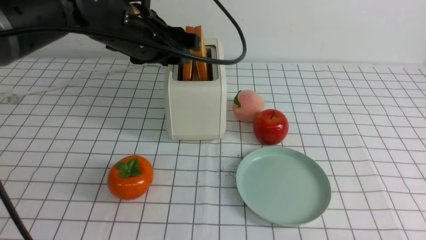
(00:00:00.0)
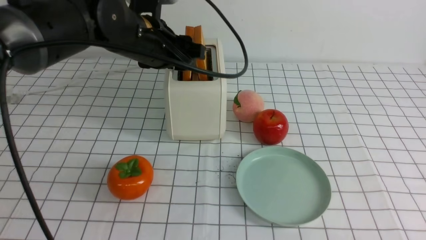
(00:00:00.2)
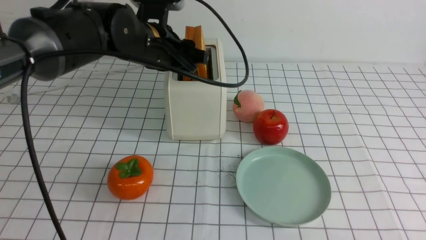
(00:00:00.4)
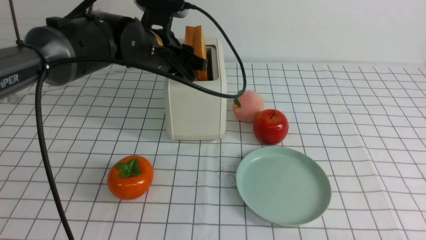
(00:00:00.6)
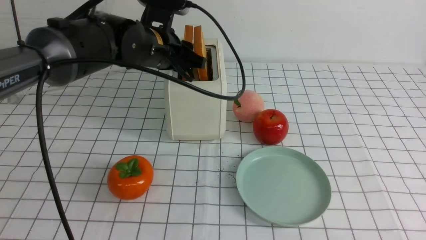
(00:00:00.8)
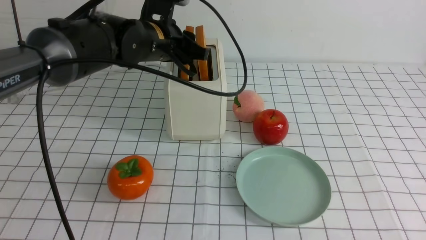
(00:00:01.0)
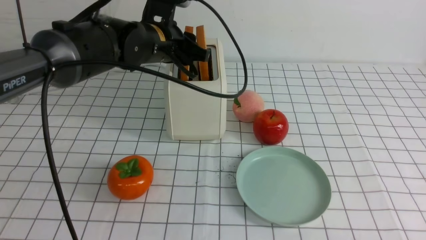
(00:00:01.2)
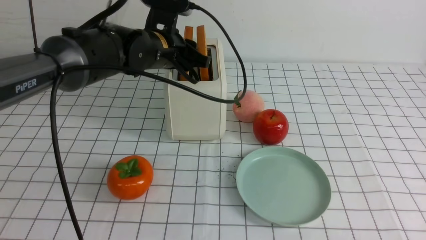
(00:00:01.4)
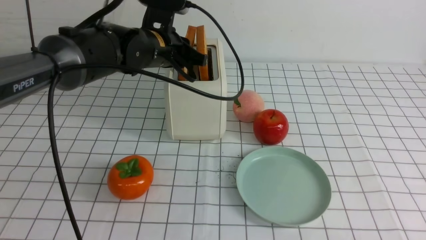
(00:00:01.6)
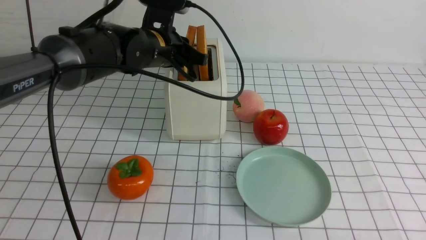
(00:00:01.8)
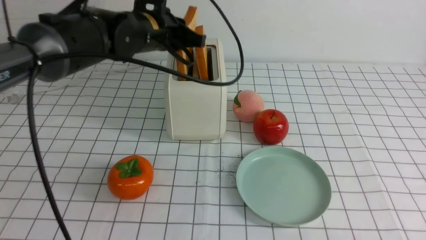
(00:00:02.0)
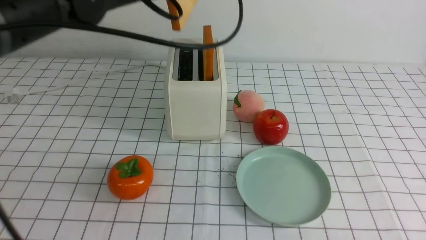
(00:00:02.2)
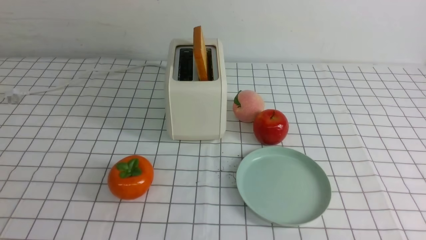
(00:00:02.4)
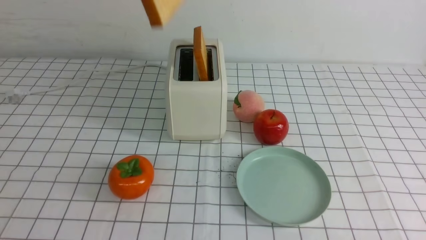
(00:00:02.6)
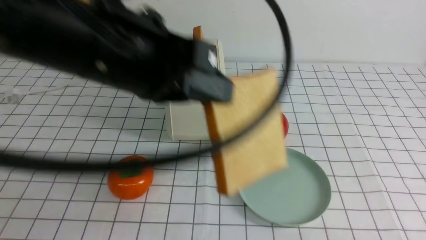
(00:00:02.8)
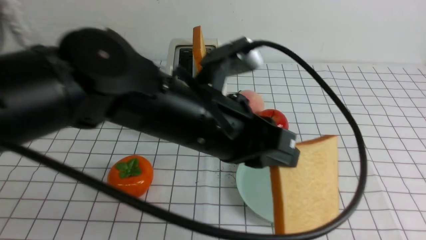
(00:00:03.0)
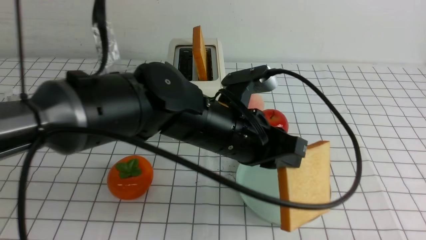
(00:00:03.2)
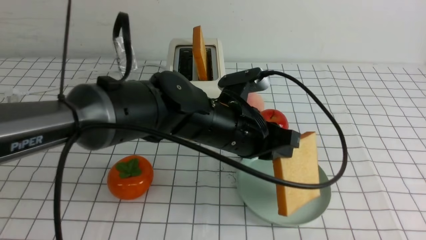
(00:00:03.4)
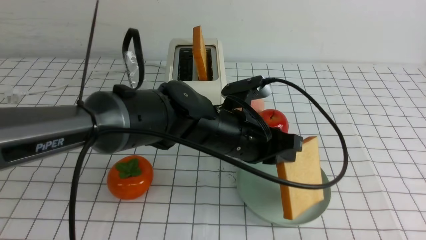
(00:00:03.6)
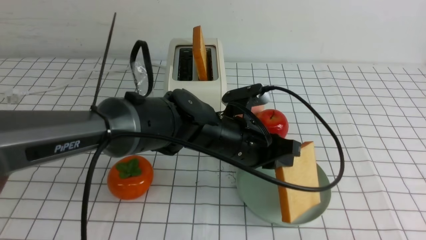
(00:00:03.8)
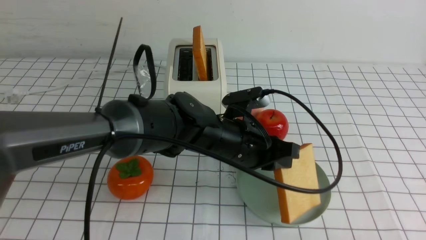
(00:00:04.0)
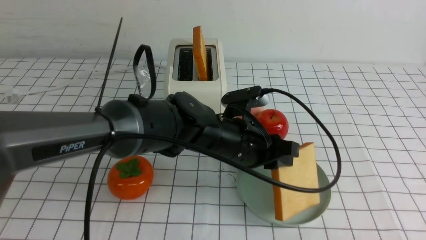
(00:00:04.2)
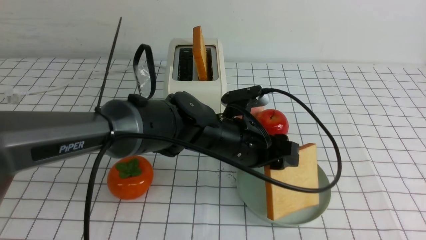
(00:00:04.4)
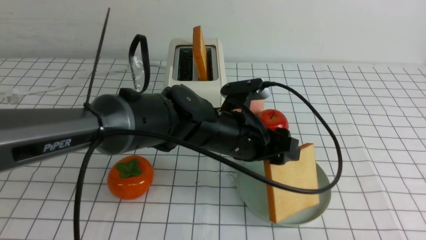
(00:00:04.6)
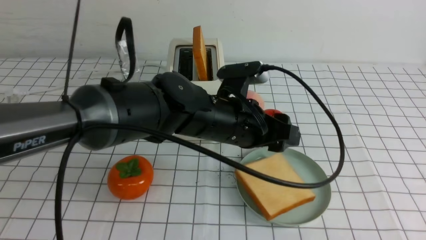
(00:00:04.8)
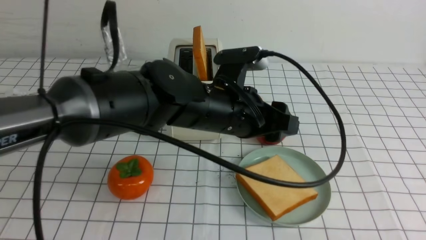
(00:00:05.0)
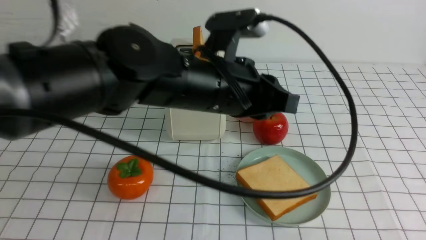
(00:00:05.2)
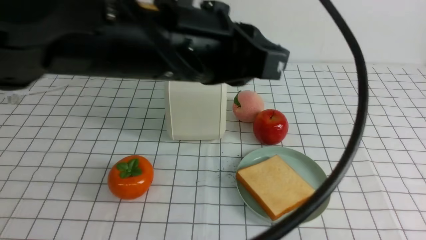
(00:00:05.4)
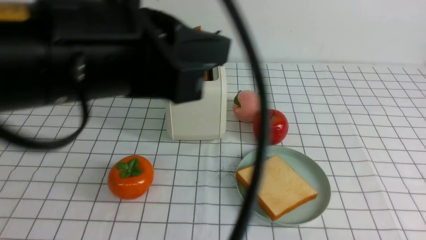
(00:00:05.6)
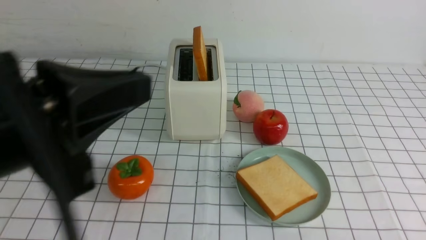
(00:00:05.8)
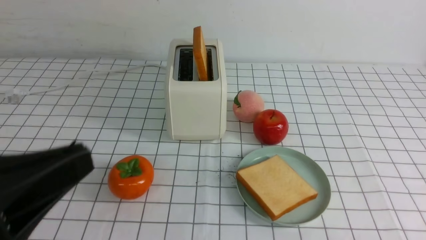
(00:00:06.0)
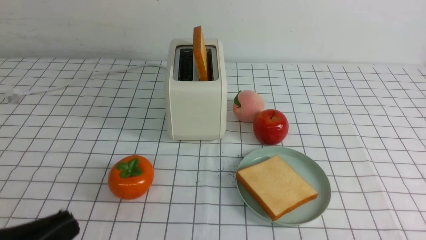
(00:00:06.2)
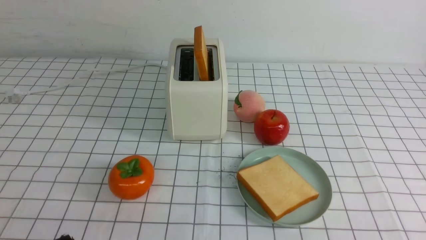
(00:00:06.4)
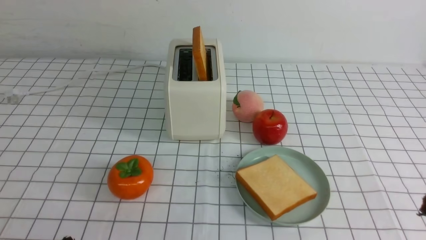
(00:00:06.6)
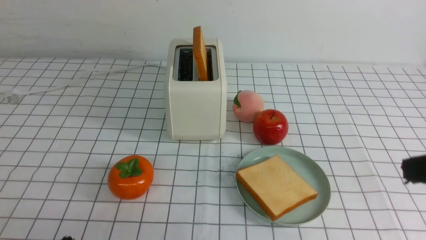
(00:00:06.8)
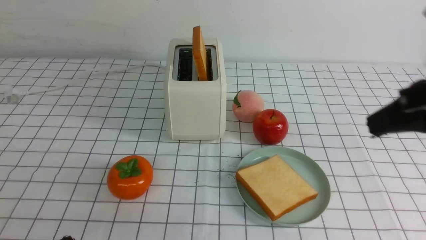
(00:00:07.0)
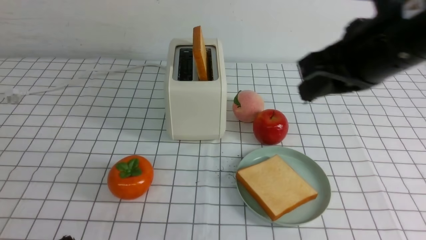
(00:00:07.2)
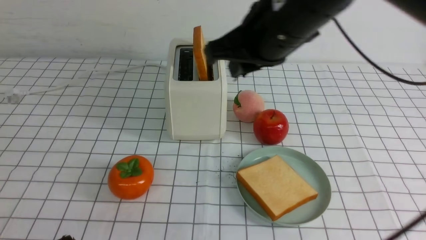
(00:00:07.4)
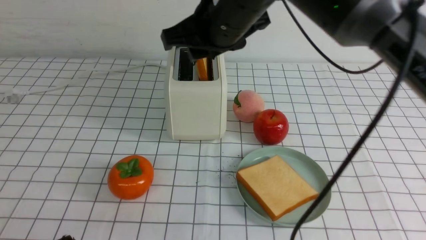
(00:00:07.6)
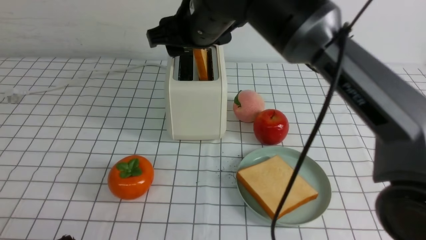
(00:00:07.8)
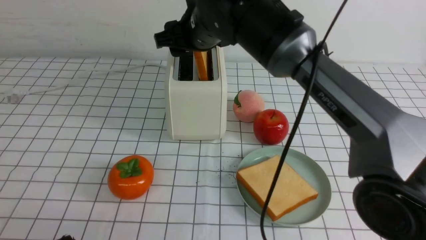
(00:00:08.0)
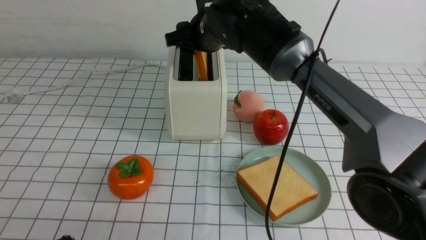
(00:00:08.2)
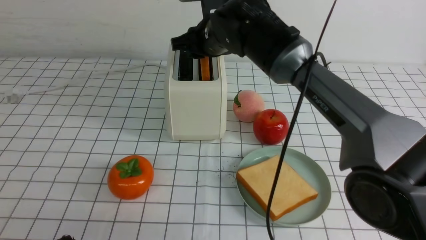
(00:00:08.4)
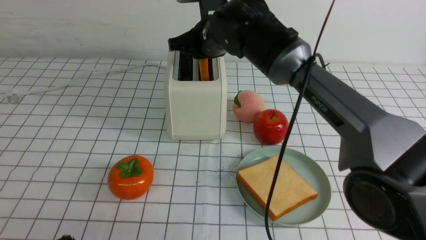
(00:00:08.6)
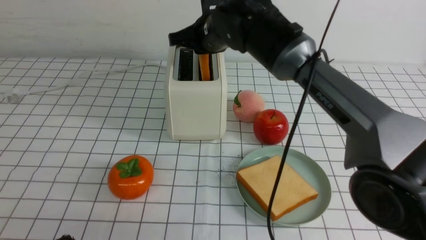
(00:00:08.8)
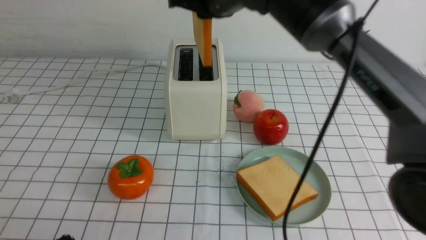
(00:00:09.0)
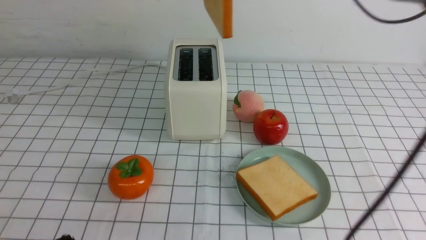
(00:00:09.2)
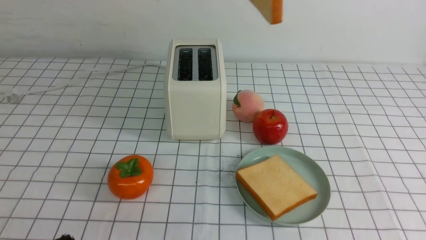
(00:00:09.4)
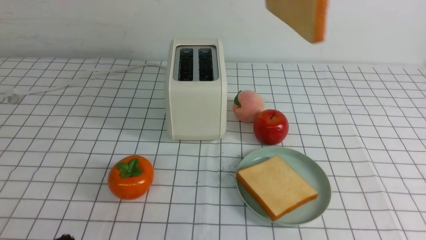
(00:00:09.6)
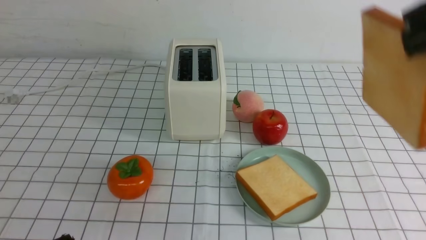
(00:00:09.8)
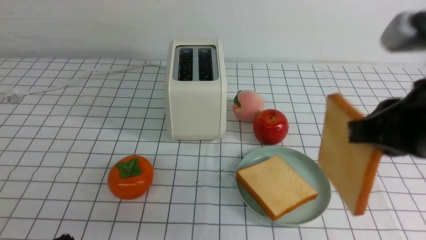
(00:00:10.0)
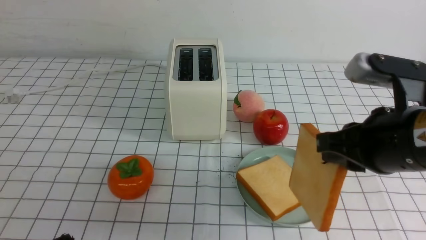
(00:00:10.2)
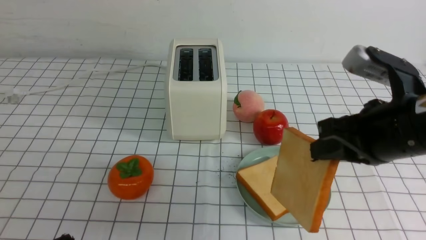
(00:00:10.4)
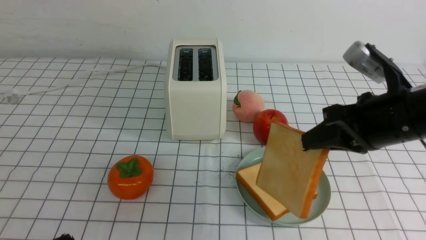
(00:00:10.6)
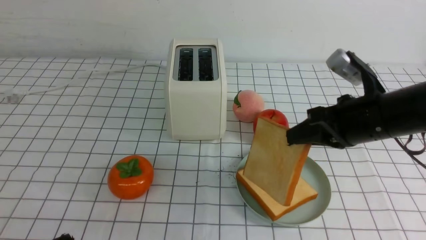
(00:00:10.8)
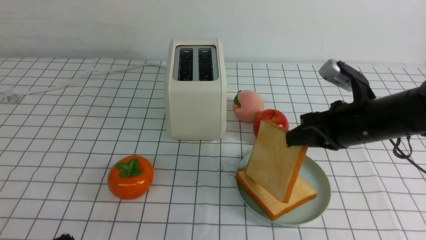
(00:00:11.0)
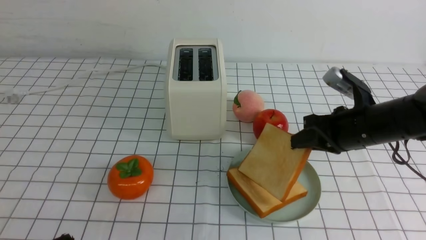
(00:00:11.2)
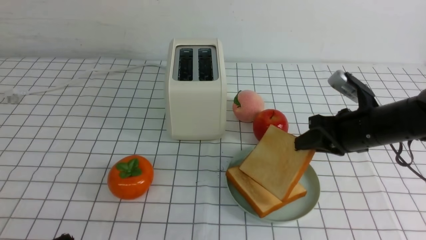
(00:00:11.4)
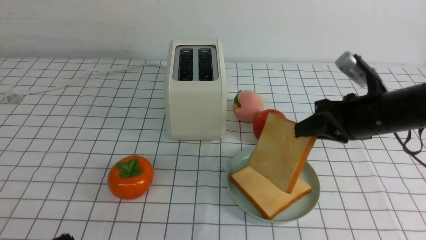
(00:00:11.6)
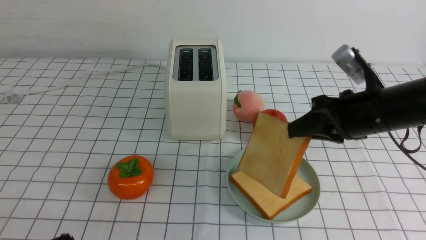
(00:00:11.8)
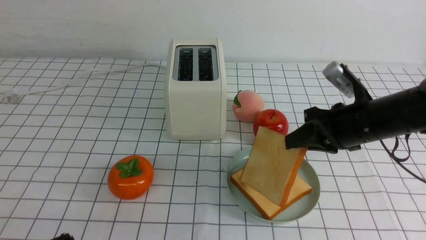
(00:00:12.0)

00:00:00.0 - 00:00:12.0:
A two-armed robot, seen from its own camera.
Task of the whole recording: take toasted bread from bread machine on white checkered table place on plate.
Step, 00:00:00.0 - 00:00:02.0: use the left arm to take out a slice of bread.
Step, 00:00:02.2 - 00:00:04.6: use the left arm to put a slice of bread into the empty plate.
Step, 00:00:04.8 - 00:00:09.0: use the right arm to take out a slice of bread.
00:00:00.0 - 00:00:01.6: The left gripper shifts approximately 10 cm forward and downward, and closes its fingers.
00:00:01.6 - 00:00:03.0: The left gripper moves backward, approximately 20 cm.
00:00:03.0 - 00:00:04.4: The left gripper shifts approximately 15 cm downward and forward, and opens its fingers.
00:00:04.4 - 00:00:06.0: The left gripper goes approximately 35 cm backward, to the left and upward, and closes.
00:00:06.0 - 00:00:07.6: The right gripper travels forward, to the left and upward by about 50 cm, and closes, then opens again, while the left gripper goes some 10 cm downward.
00:00:07.6 - 00:00:09.0: The right gripper closes its fingers.
00:00:09.0 - 00:00:10.4: The right gripper shifts approximately 25 cm to the right, backward and downward.
00:00:10.4 - 00:00:12.0: The right gripper travels forward and downward by some 15 cm.

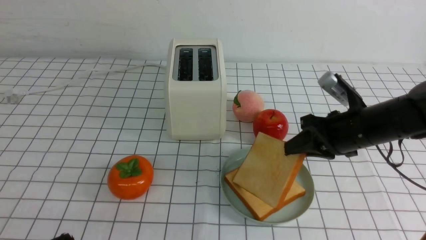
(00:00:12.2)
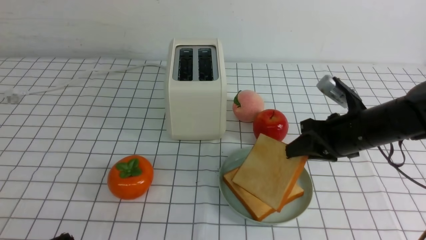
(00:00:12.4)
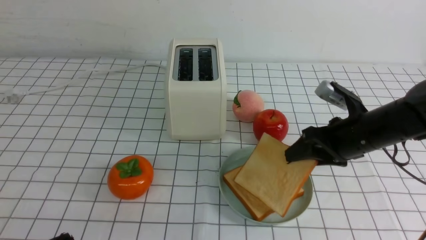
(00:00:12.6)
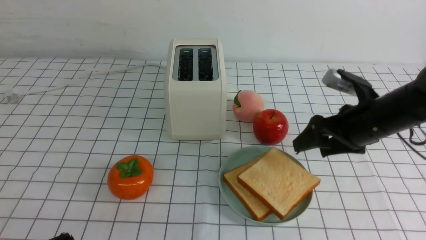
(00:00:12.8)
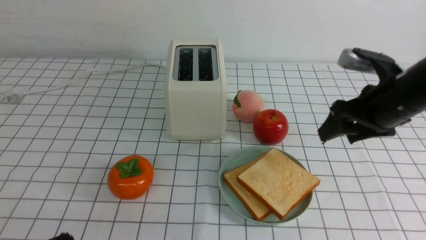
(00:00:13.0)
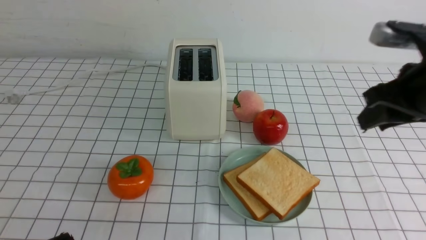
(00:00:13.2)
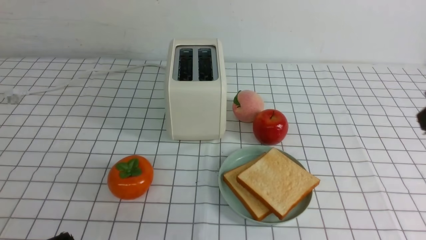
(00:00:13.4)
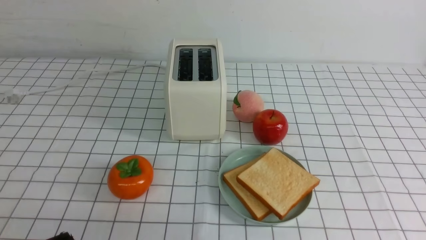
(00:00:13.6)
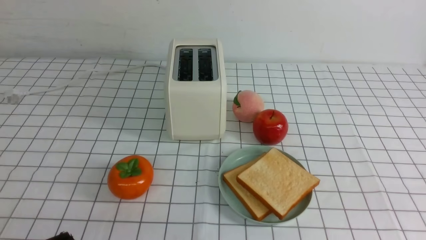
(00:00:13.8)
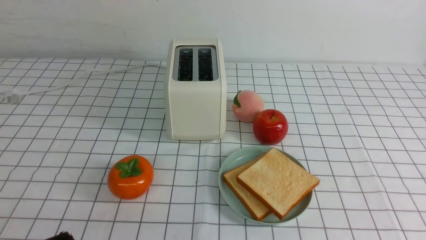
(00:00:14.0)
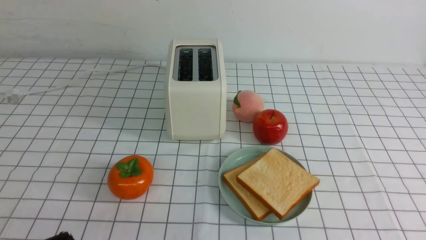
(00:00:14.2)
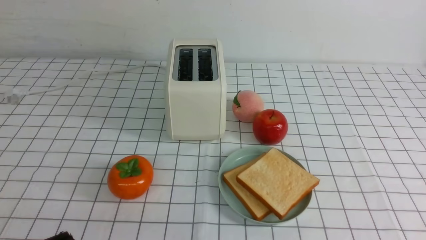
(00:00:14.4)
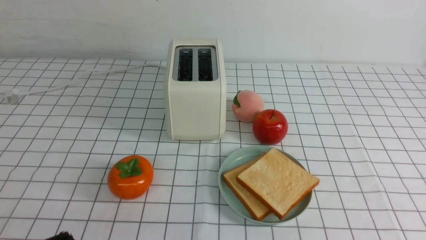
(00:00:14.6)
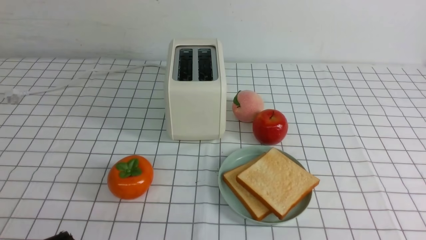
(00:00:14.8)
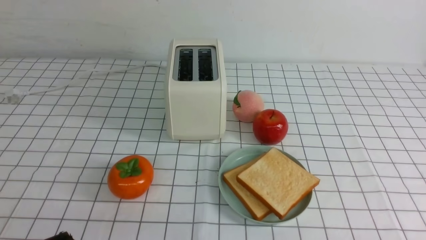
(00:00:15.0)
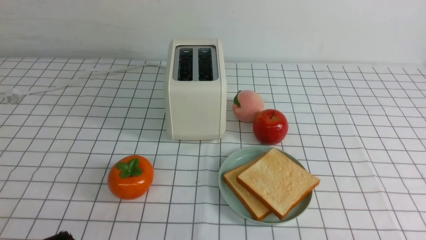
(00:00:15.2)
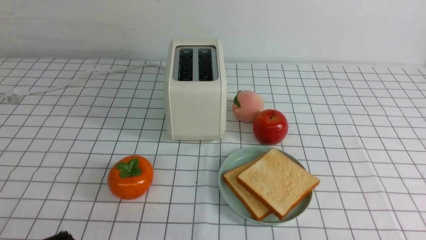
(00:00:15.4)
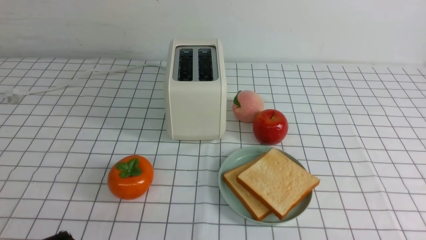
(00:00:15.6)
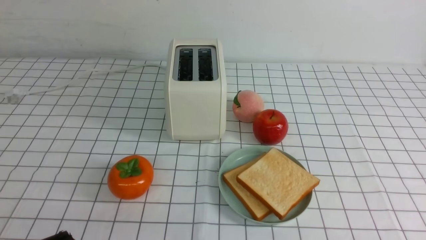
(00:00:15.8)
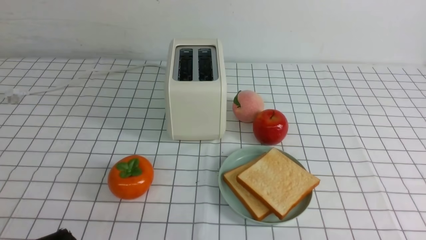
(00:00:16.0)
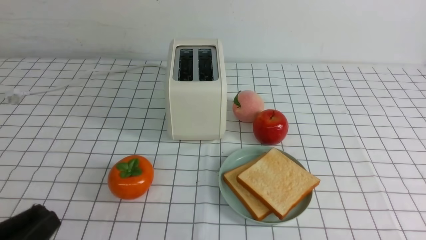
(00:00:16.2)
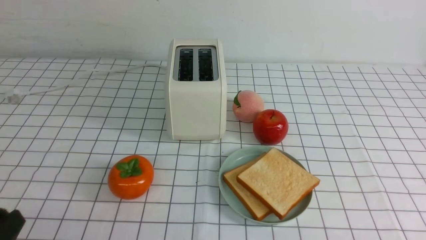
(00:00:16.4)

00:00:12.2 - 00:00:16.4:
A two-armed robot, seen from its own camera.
Task of the whole recording: take toasted bread from bread machine on white checkered table place on plate.
00:00:12.2 - 00:00:13.6: The right gripper travels backward and upward by some 25 cm, and opens and closes again.
00:00:15.0 - 00:00:16.4: The left gripper moves roughly 5 cm.
